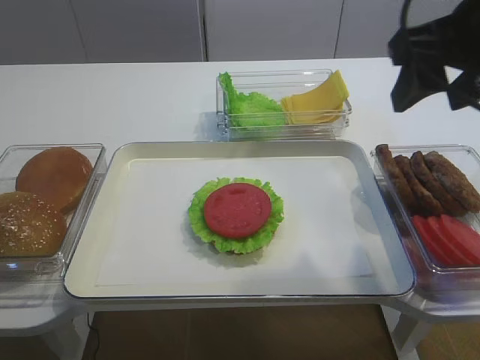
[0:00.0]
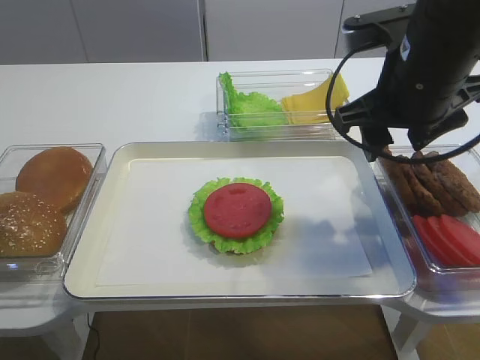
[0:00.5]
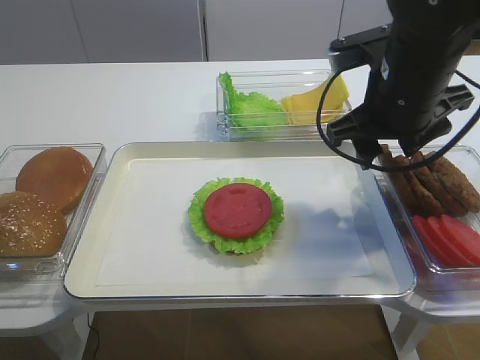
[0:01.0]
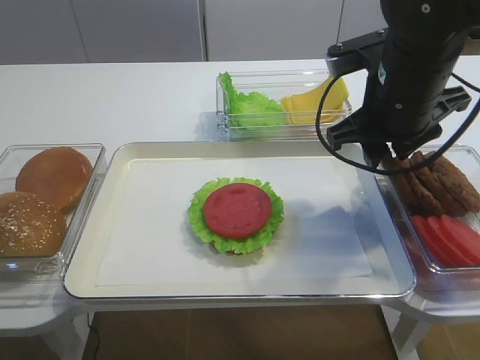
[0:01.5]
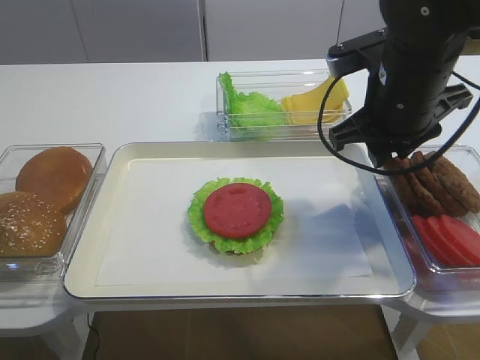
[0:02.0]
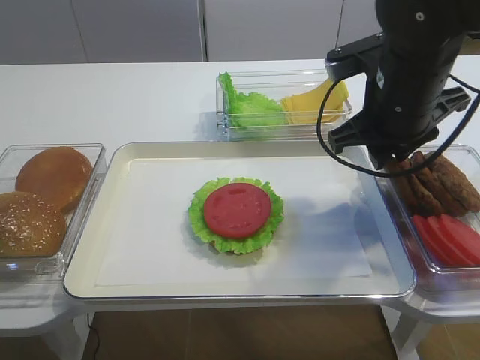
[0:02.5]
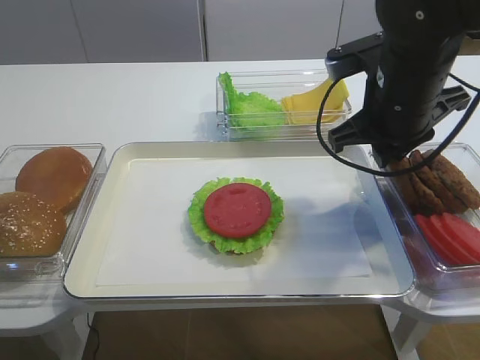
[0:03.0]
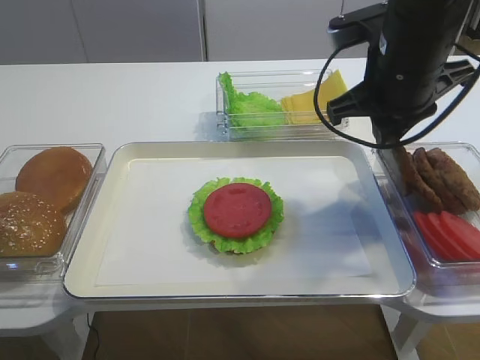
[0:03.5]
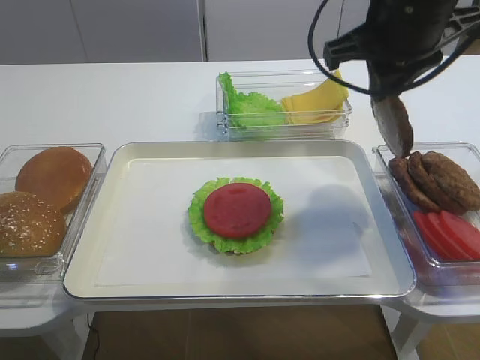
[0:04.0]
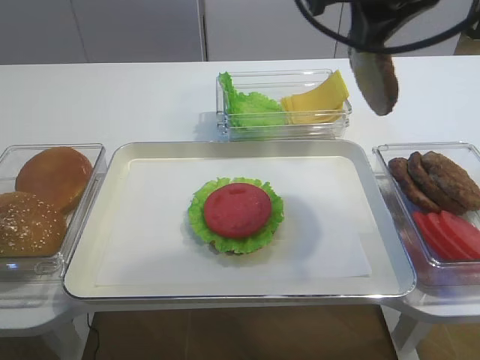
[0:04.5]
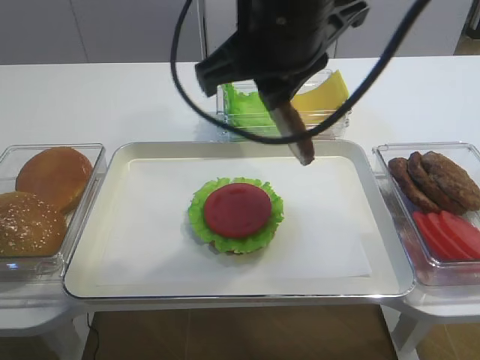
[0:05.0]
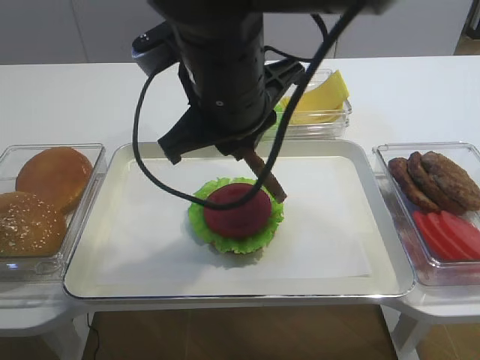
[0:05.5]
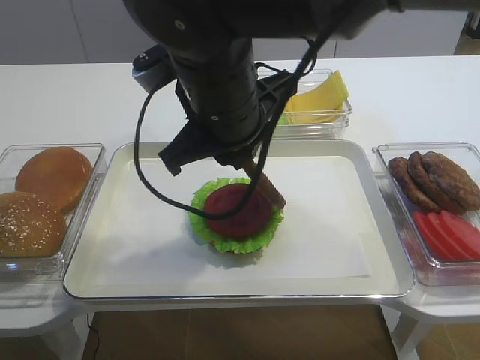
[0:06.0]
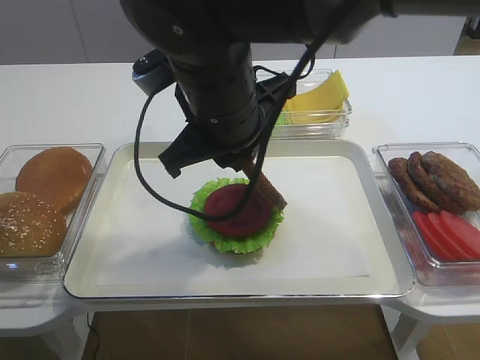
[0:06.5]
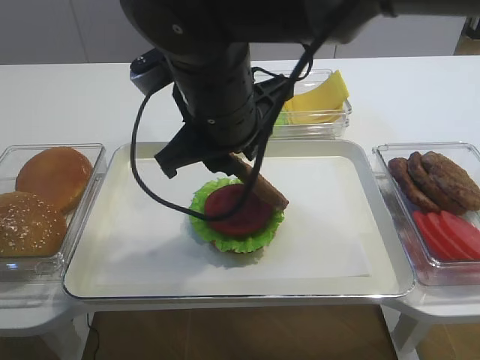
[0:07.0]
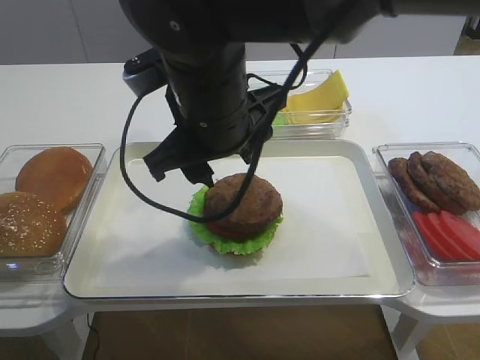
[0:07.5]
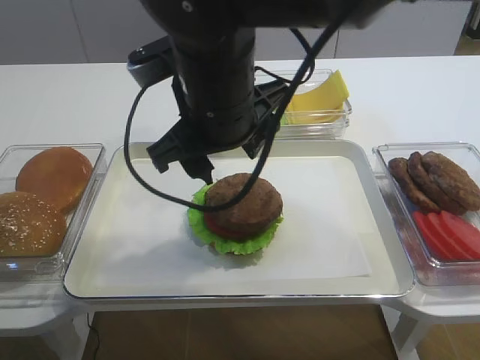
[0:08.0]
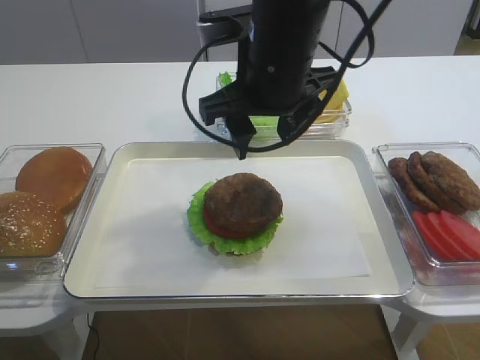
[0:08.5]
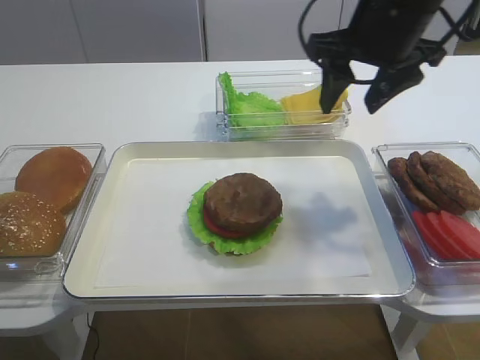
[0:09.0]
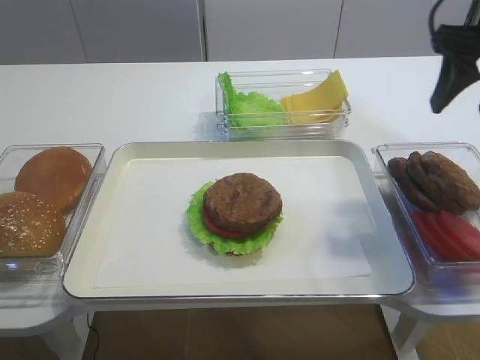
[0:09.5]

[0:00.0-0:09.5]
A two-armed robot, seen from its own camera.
Step, 0:00.0 to 0:04.0: Pick up the cutlet with the right gripper.
Step, 0:04.5 to 0:08.0: Place the cutlet on the tomato slice with the right gripper.
0:00.0 to 0:02.0: The right gripper shifts some 10 cm downward and forward, and closes.
0:02.0 to 0:04.0: The right gripper is displaced upward by roughly 10 cm.
0:04.0 to 0:05.5: The right gripper moves to the left, some 15 cm.
0:05.5 to 0:07.5: The right gripper opens its fingers.
0:07.5 to 0:09.5: The right gripper shifts some 30 cm to the right.

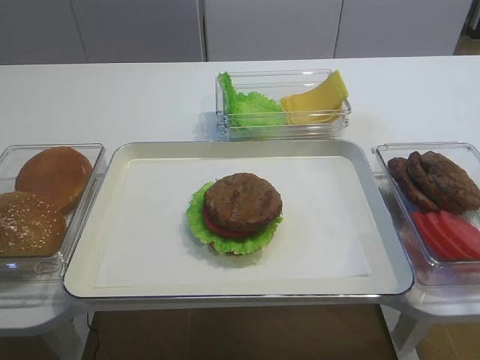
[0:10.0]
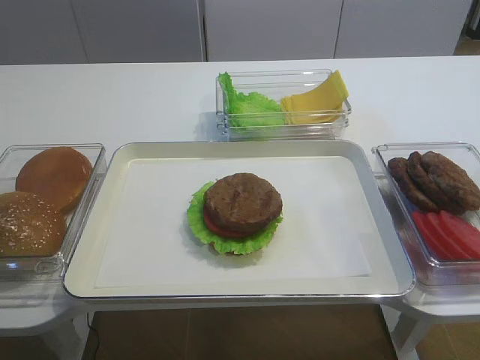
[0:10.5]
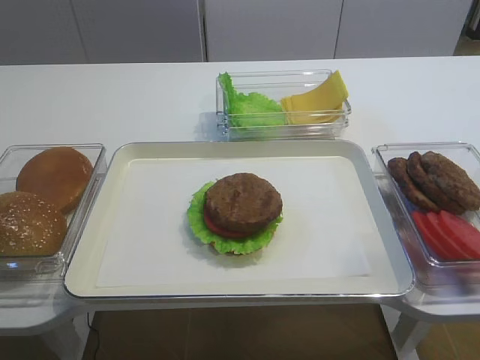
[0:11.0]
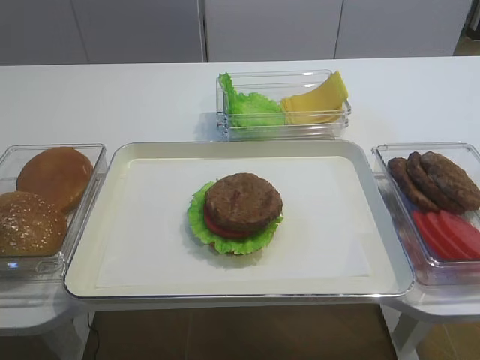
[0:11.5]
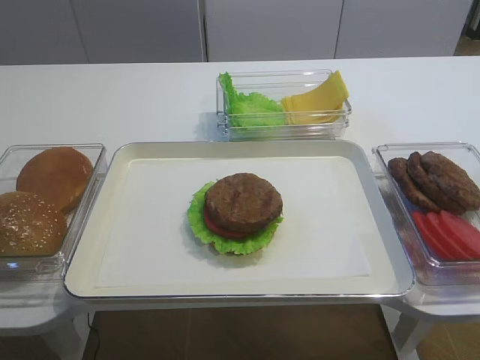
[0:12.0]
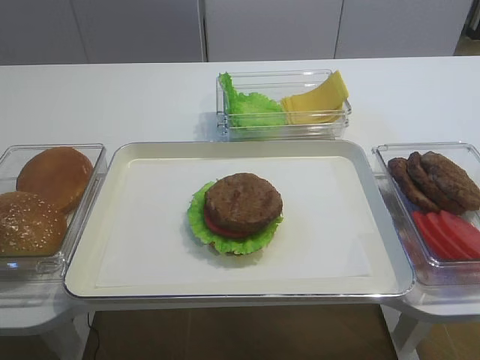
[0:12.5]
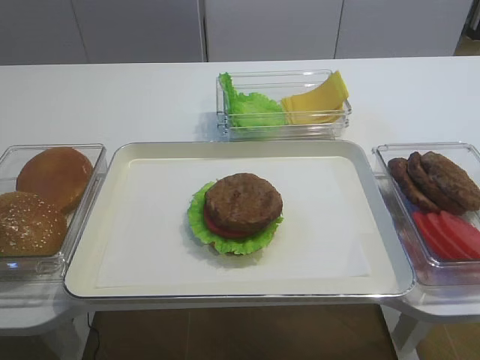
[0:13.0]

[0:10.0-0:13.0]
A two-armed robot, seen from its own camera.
0:10.0 to 0:11.5: The right gripper moves backward, some 25 cm.
